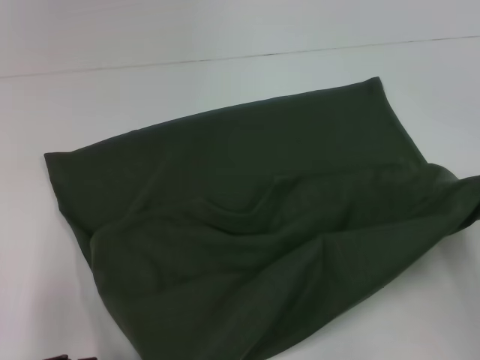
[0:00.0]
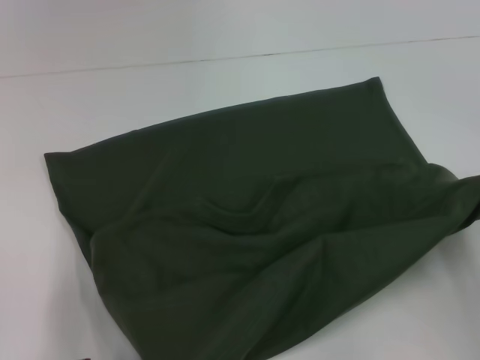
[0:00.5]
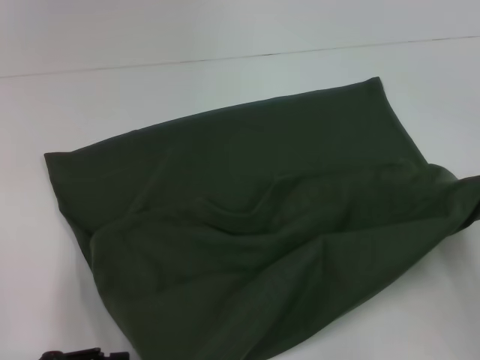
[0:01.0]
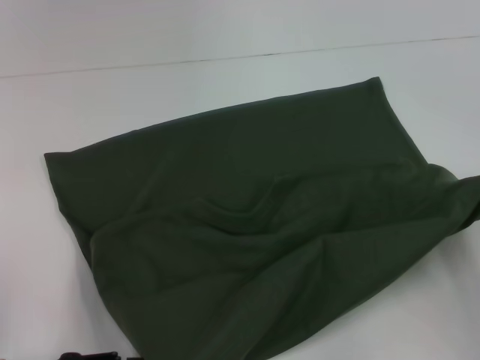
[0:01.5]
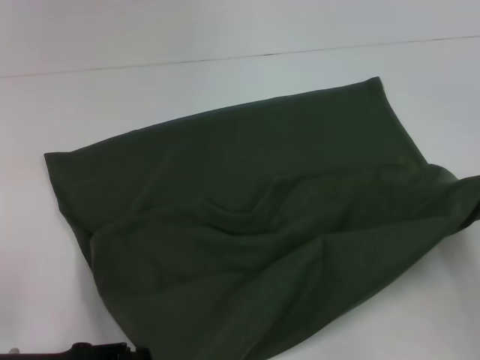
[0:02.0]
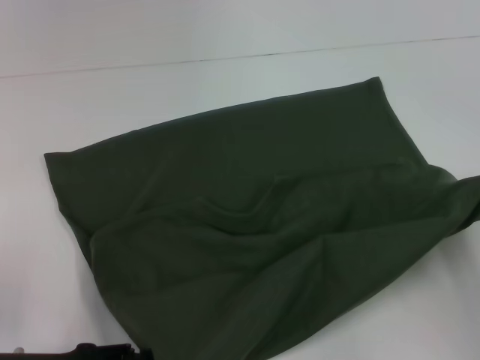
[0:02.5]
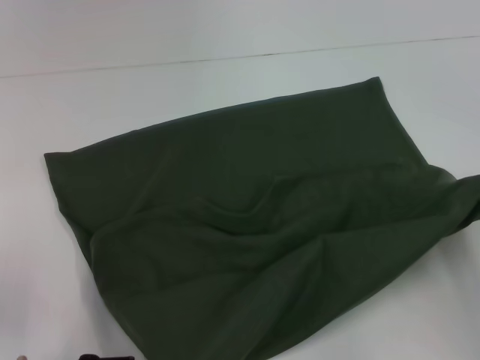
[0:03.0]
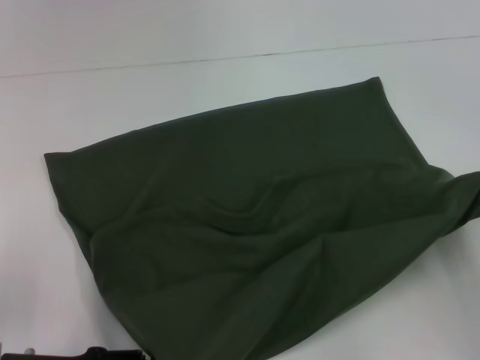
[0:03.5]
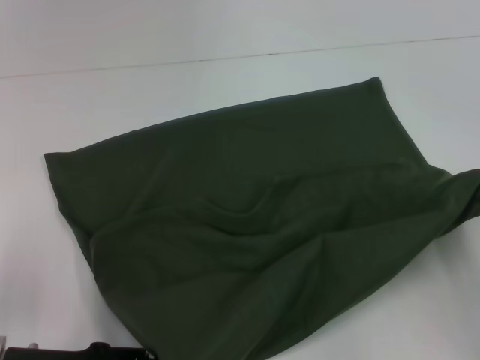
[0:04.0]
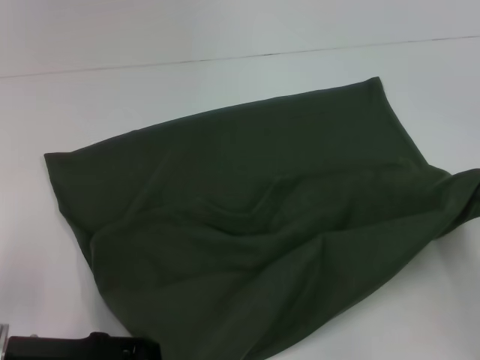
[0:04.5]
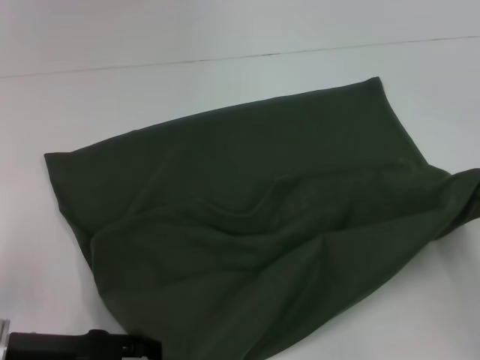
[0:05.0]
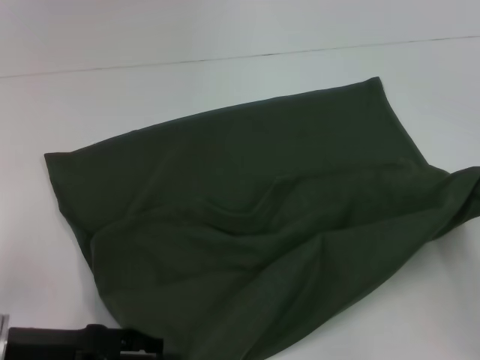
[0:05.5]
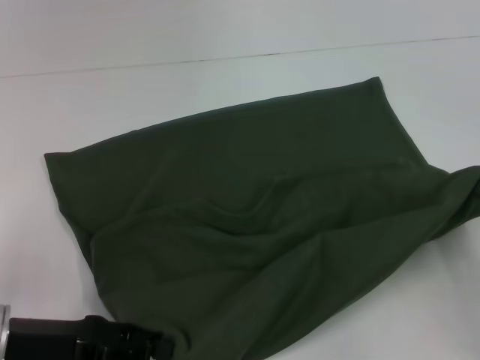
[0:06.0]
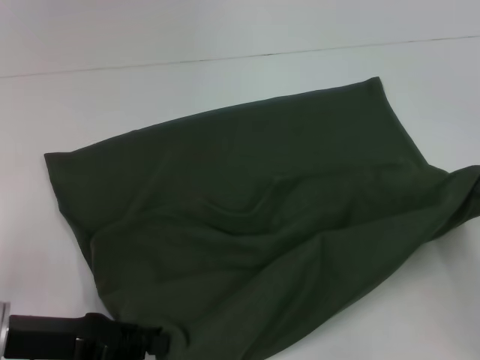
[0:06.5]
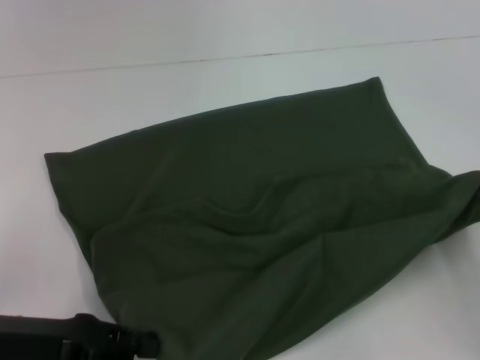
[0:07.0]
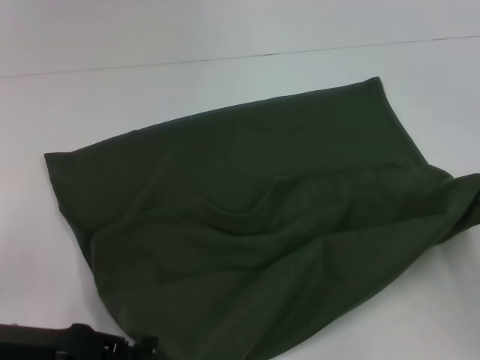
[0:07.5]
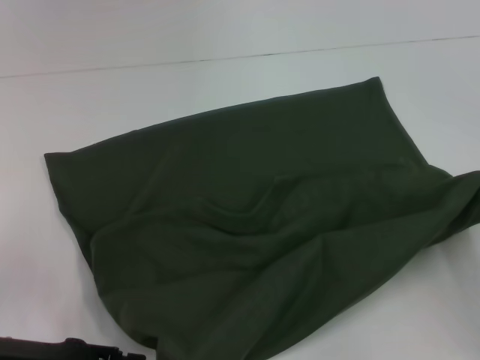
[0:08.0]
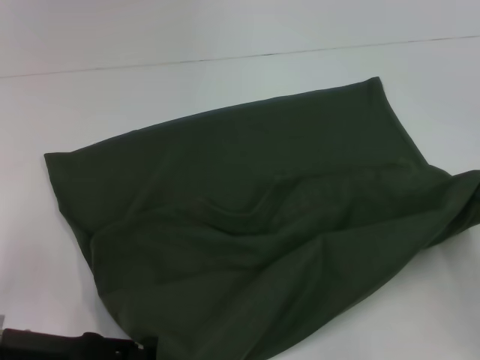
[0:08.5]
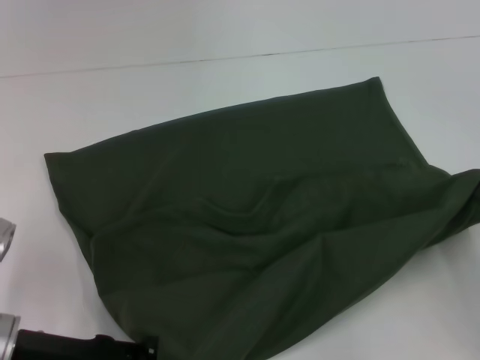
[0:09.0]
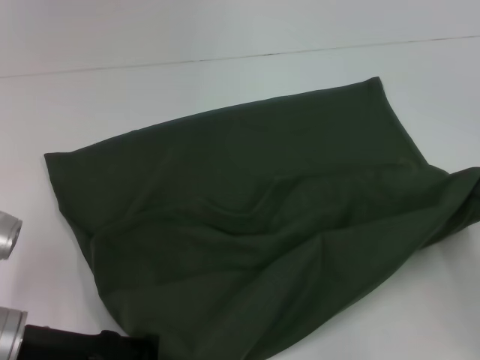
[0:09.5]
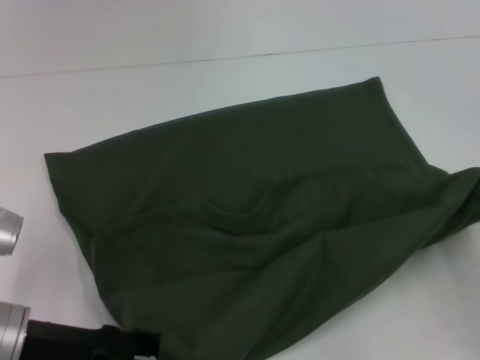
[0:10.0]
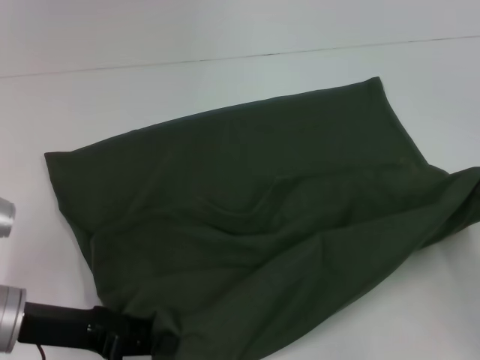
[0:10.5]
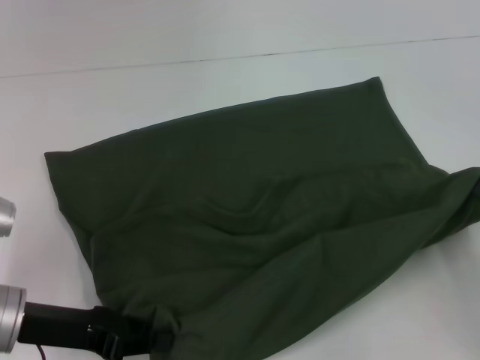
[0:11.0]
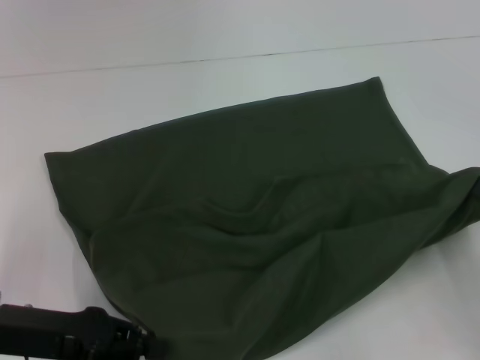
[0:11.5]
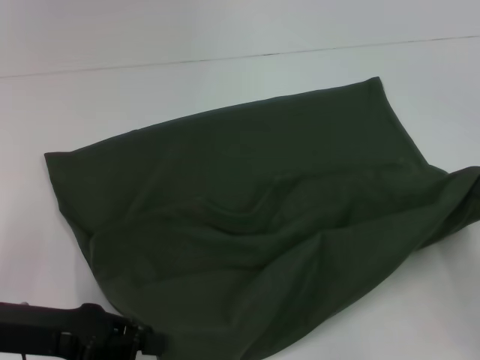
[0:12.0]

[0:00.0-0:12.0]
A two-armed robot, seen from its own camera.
0:00.0 to 0:02.0: The left gripper ends up about 5 cm from where it was.
0:02.0 to 0:08.0: The grippers move only a little.
0:08.0 to 0:10.0: The left gripper opens.
0:10.0 to 0:12.0: The left gripper closes its fingers.

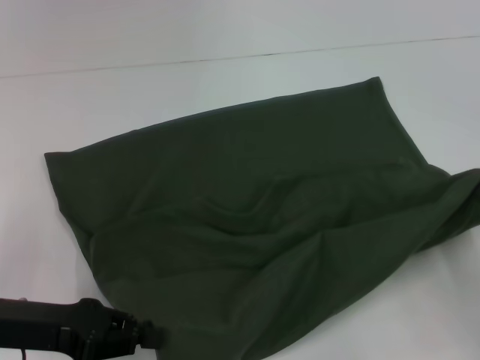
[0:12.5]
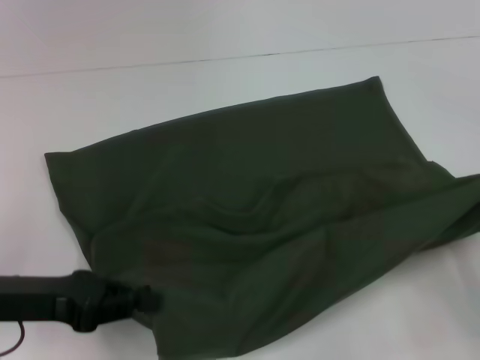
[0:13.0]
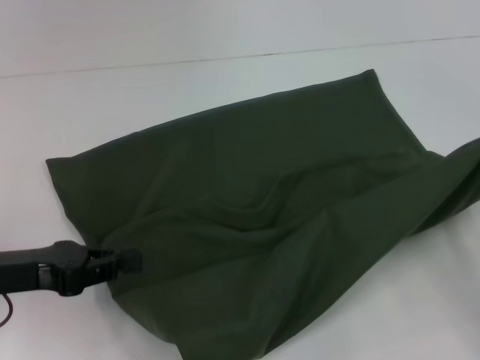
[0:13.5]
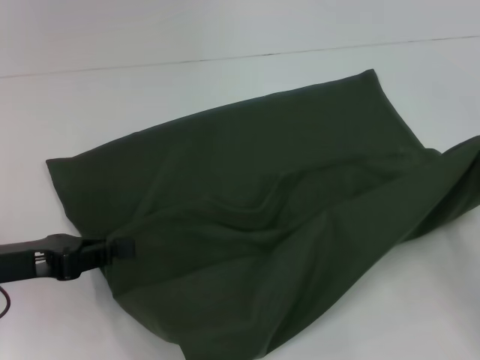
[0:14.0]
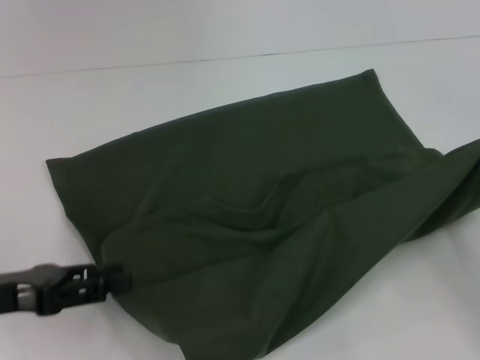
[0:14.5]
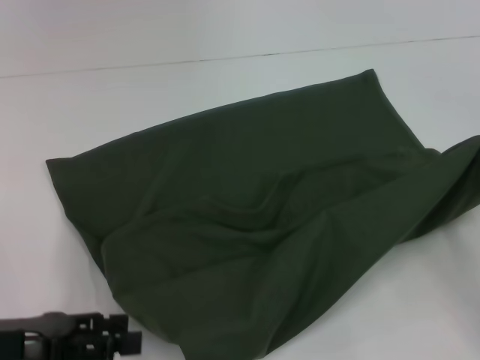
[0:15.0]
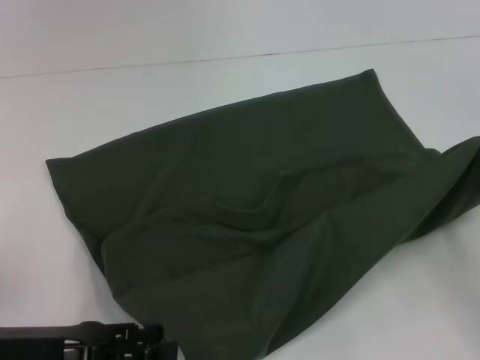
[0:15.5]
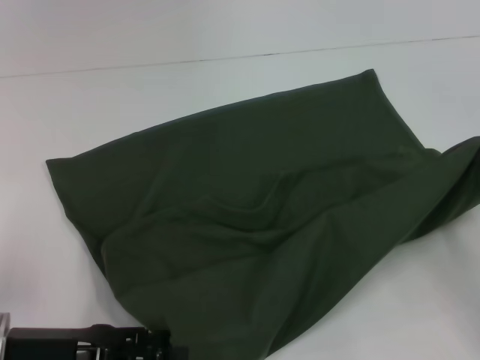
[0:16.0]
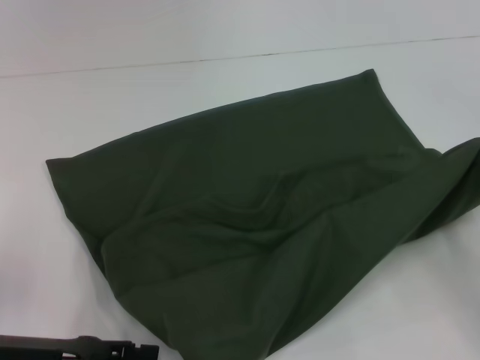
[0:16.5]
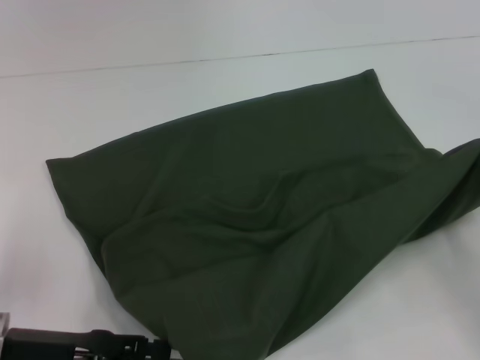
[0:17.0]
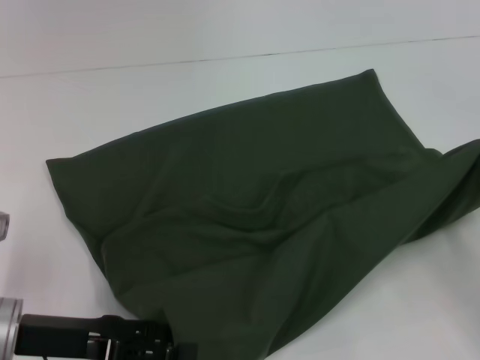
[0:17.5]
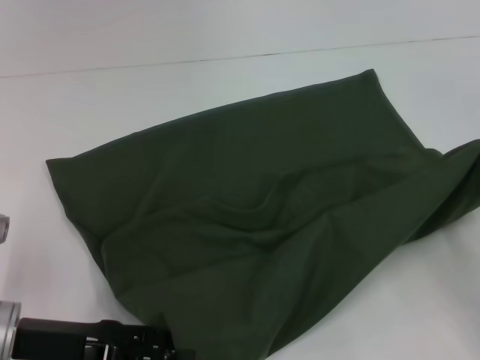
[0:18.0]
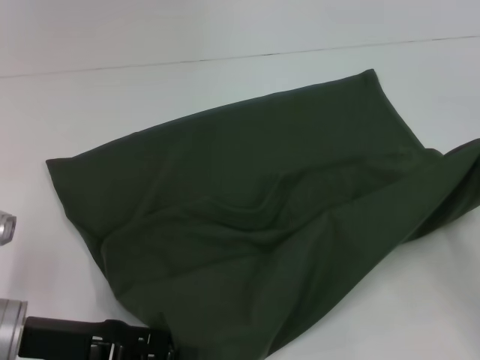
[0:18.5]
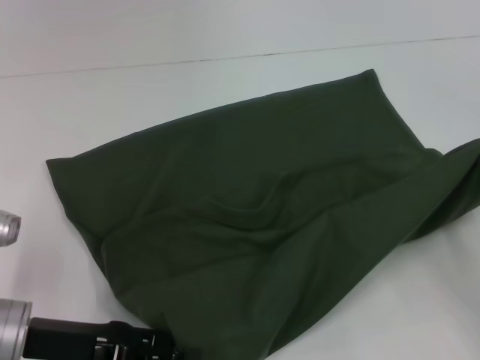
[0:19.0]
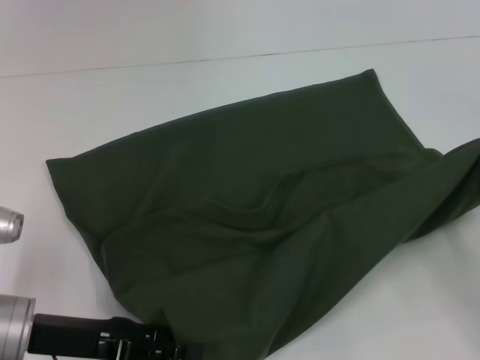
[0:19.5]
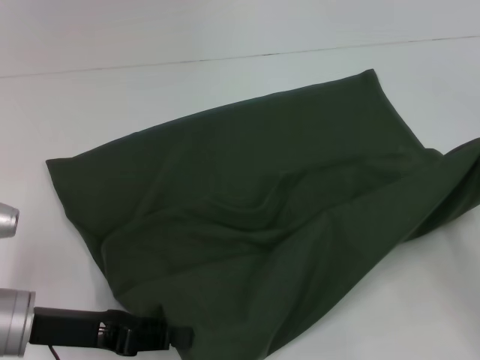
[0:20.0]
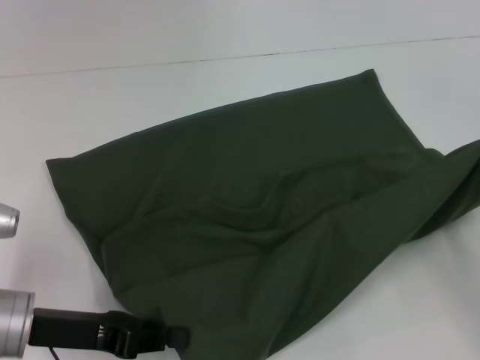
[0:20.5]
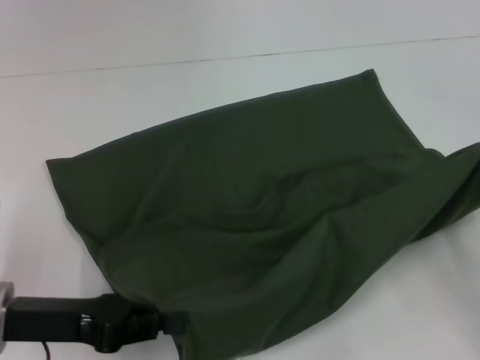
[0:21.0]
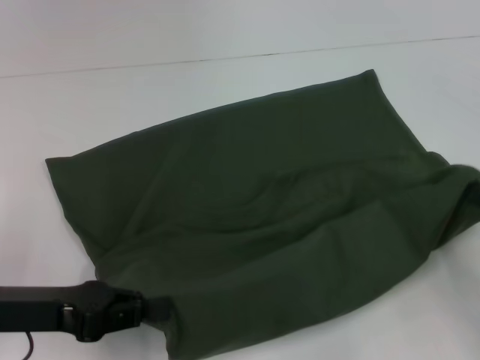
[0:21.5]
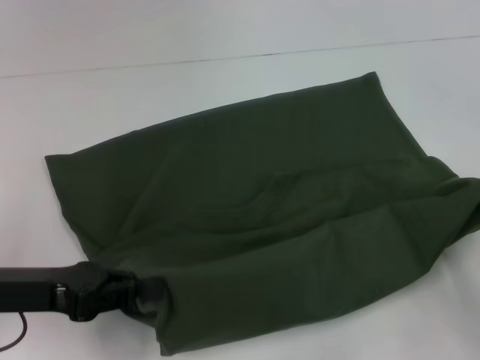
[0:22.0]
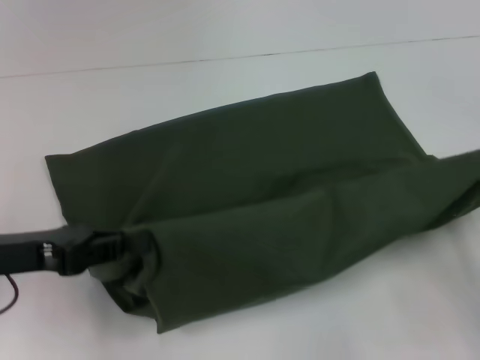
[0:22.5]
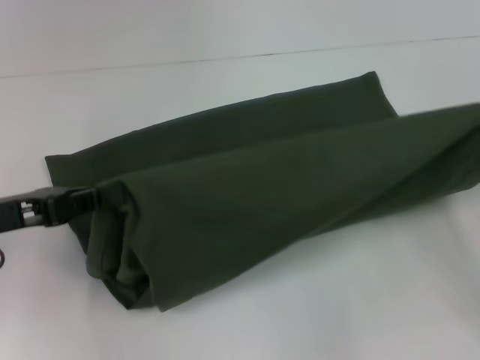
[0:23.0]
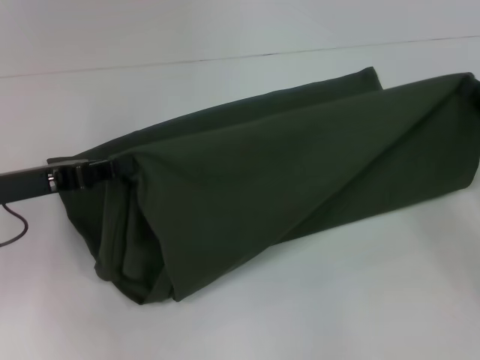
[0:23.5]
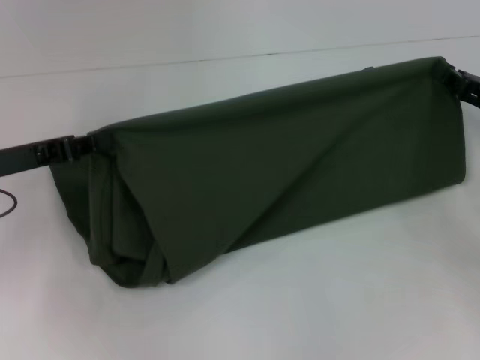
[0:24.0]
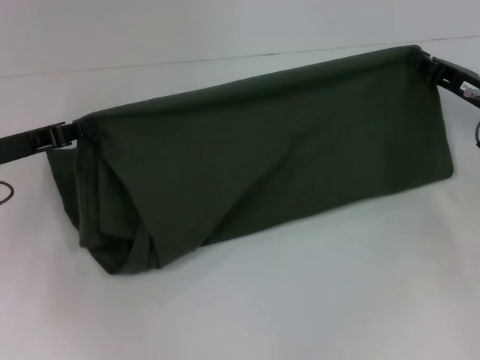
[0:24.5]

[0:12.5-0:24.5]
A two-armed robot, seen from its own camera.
Step, 0:12.5 to 0:21.0: Pull the clothes with your left hand.
Step, 0:12.5 to 0:21.0: Pull the clothes with your right hand.
0:12.5 to 0:14.5: There are only small adjustments of the grippers.
0:14.5 to 0:16.5: The left gripper opens its fingers.
0:16.5 to 0:18.5: The grippers make only small movements.
0:18.5 to 0:20.5: The left gripper closes.
0:20.5 to 0:22.5: The left gripper is displaced upward by some 5 cm.
0:22.5 to 0:24.5: The left gripper goes about 10 cm forward. The right gripper moves forward, roughly 20 cm.

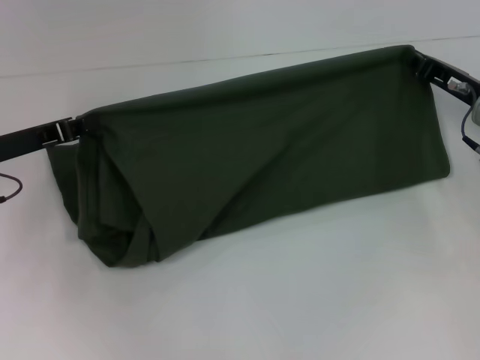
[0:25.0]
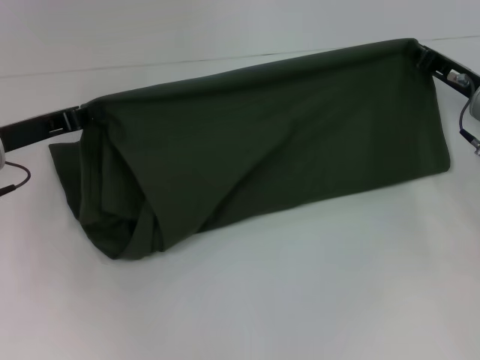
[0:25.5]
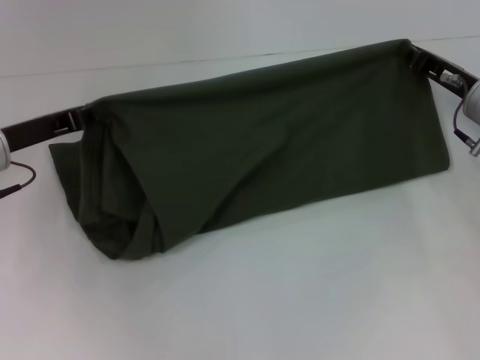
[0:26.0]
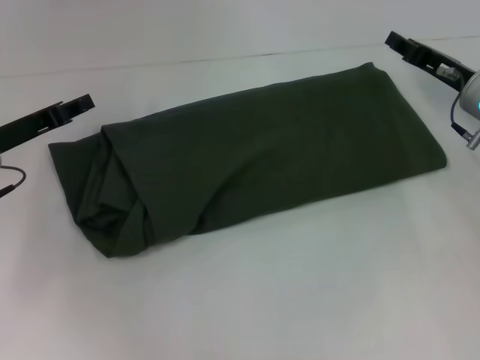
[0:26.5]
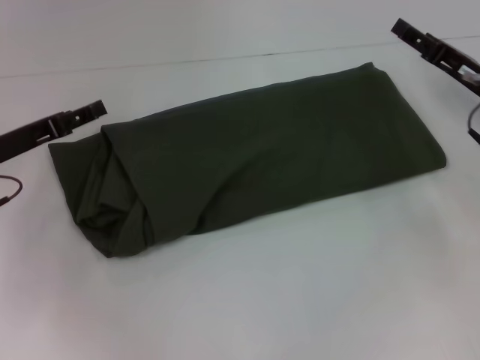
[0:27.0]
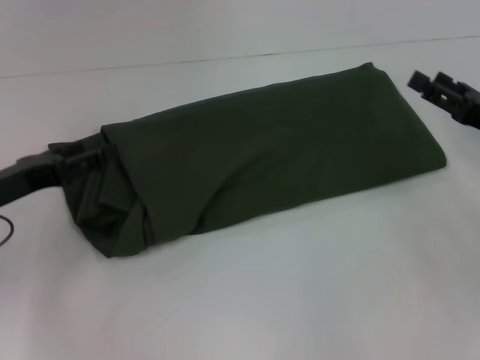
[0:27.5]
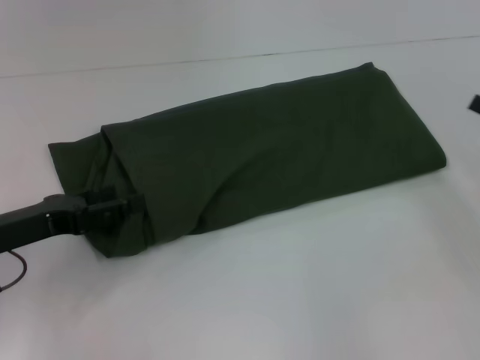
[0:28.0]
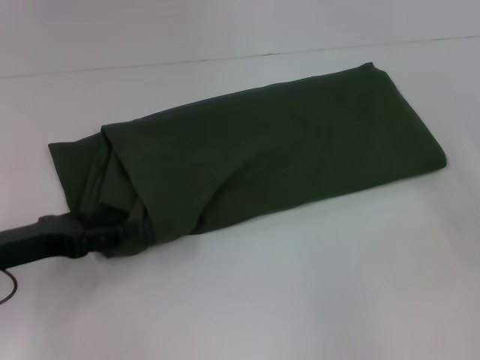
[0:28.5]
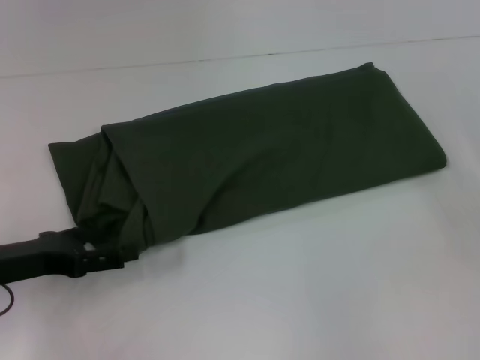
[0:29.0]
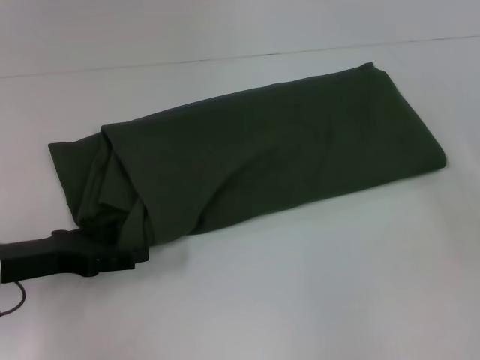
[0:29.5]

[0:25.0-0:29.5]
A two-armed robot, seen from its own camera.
0:25.0 to 0:27.0: The right gripper opens up. Meanwhile the left gripper opens its fingers.
0:27.0 to 0:29.5: The left gripper shifts roughly 10 cm backward, and opens; the right gripper goes some 15 cm to the right and backward.
